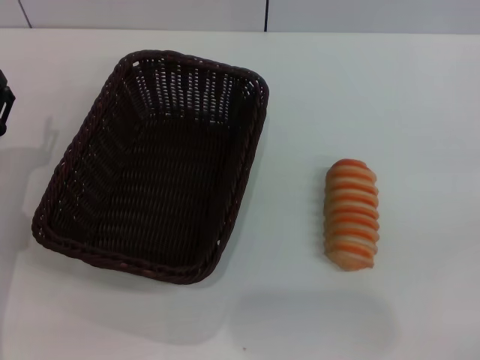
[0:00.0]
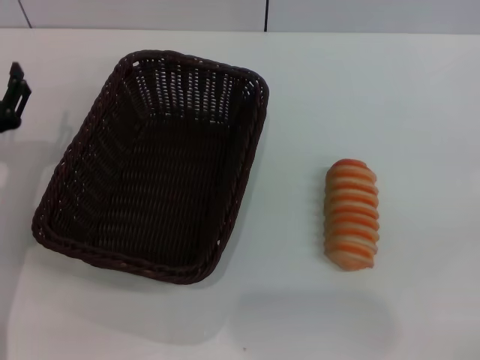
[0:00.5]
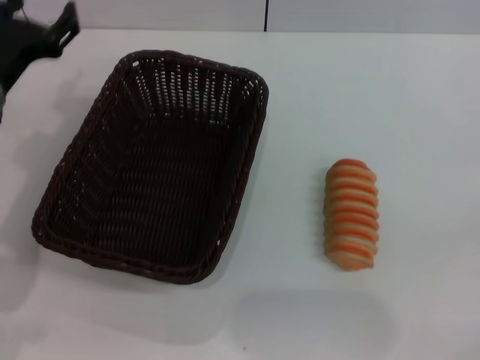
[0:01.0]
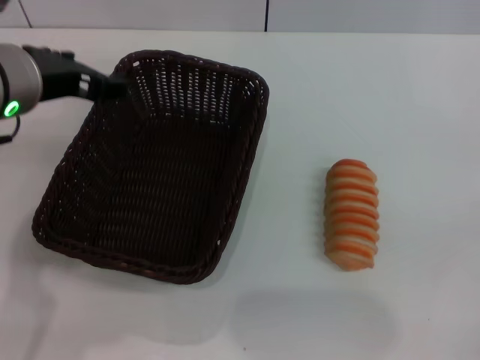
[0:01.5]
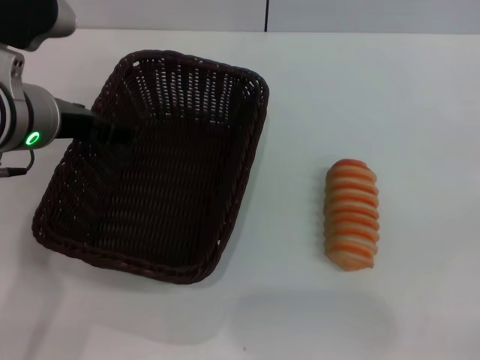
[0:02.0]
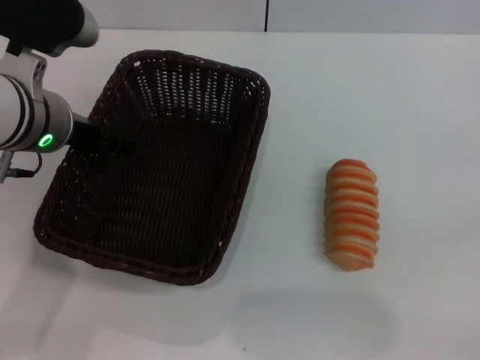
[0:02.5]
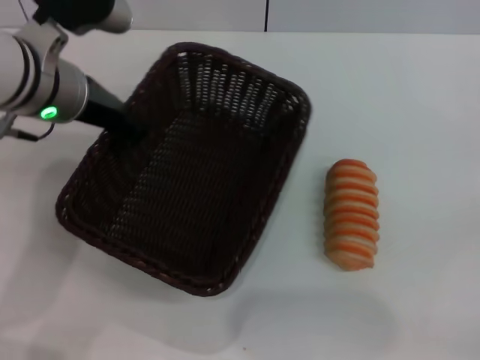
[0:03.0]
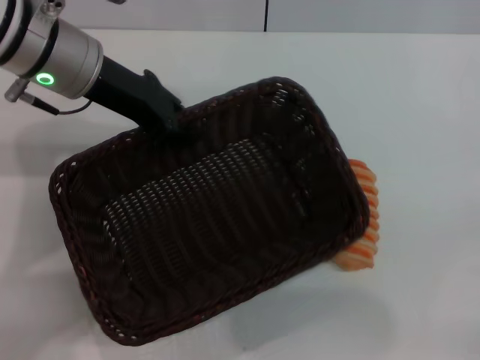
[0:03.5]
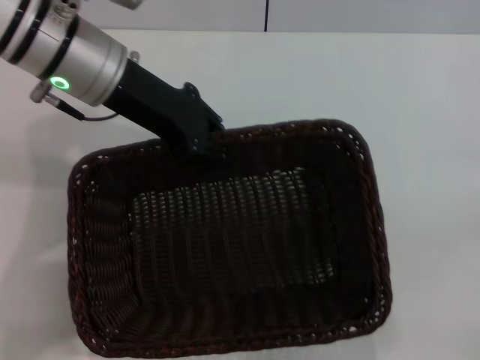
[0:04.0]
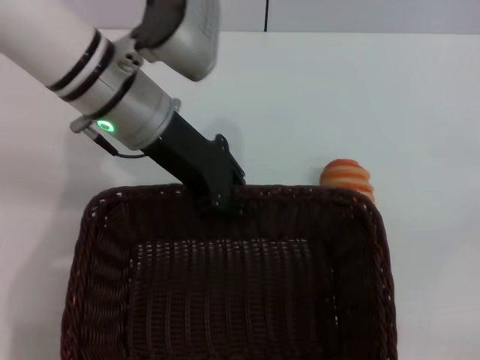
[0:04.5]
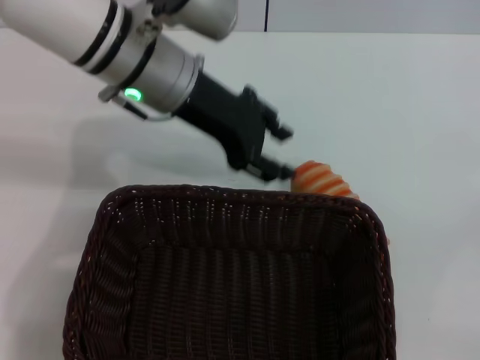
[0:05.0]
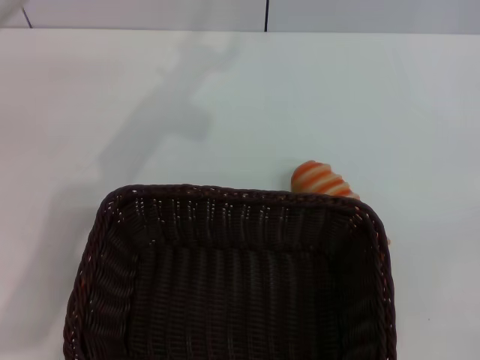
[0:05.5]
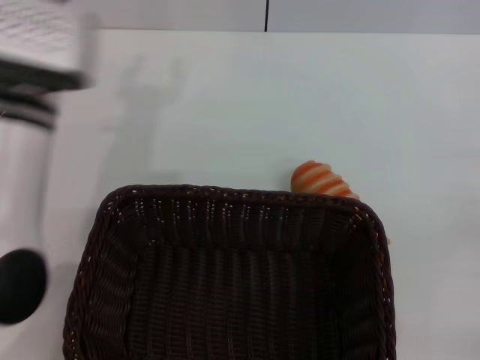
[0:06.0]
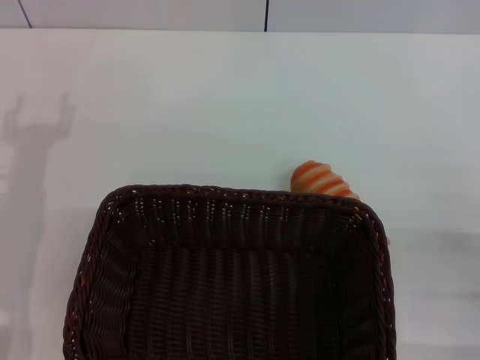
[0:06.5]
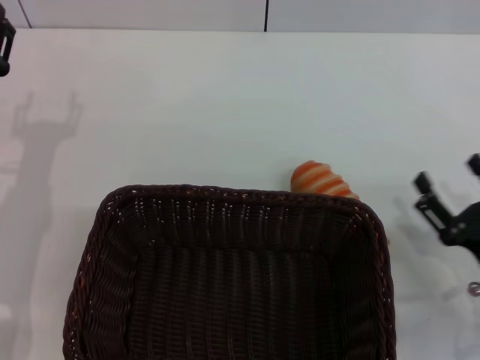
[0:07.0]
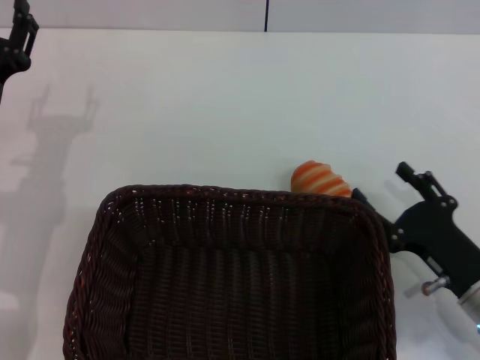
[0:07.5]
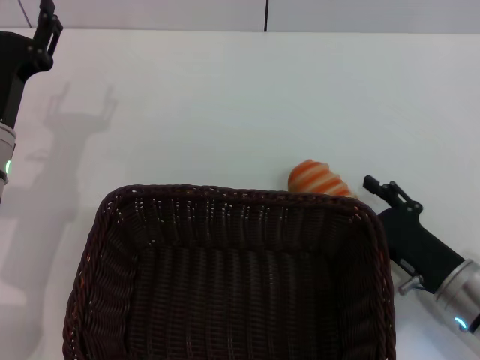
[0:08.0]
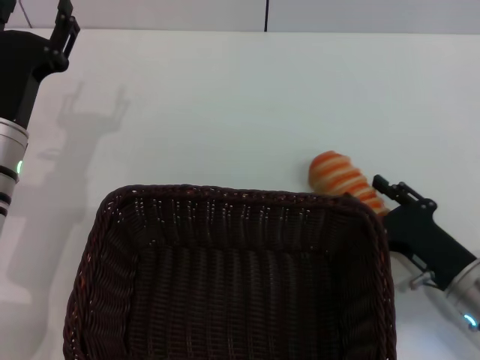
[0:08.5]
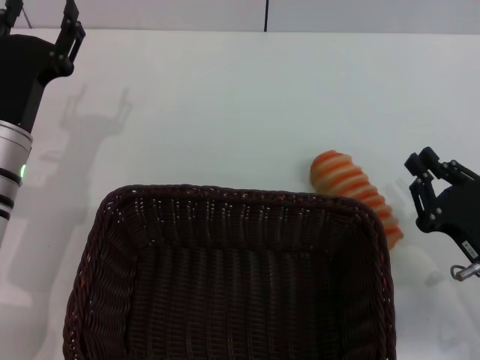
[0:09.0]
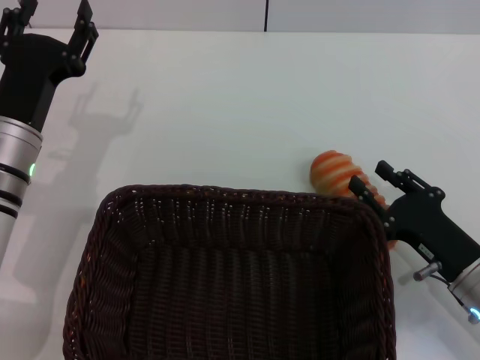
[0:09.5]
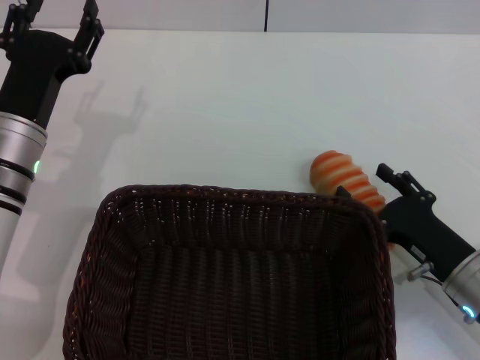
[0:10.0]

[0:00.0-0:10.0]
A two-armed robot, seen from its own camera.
Step, 0:00.0 to 0:03.5: Pick up the dark basket with the left gripper.
Step, 0:04.0 to 0:05.0: Place the dark basket in the center of view with the left gripper.
0:00.0 to 0:02.0: The left gripper heads upward, to the right and forward, covering approximately 20 cm.
0:02.0 to 0:04.0: The left gripper moves forward, some 5 cm, and closes.
0:04.0 to 0:06.0: The left gripper is displaced backward by some 5 cm, and opens up.
0:06.0 to 0:08.0: The right gripper moves to the left, about 15 cm. Meanwhile the left gripper is displaced downward and to the left by approximately 15 cm.
0:08.0 to 0:10.0: The right gripper closes and opens again.

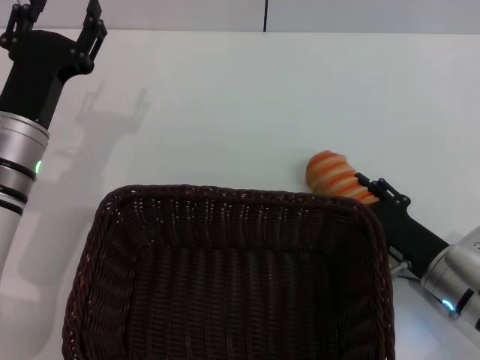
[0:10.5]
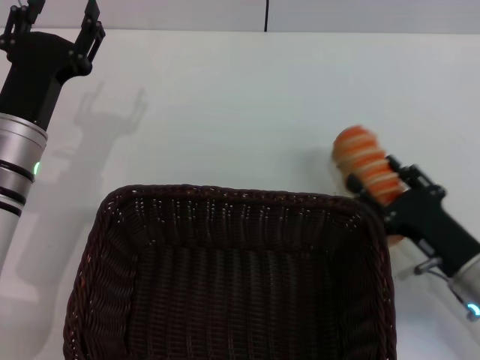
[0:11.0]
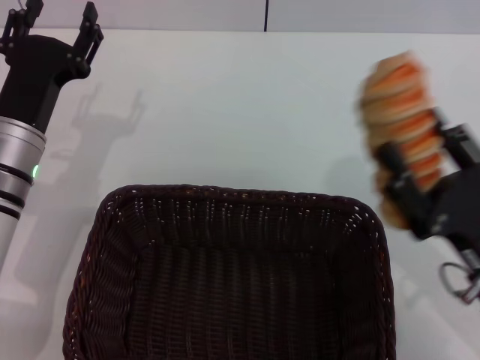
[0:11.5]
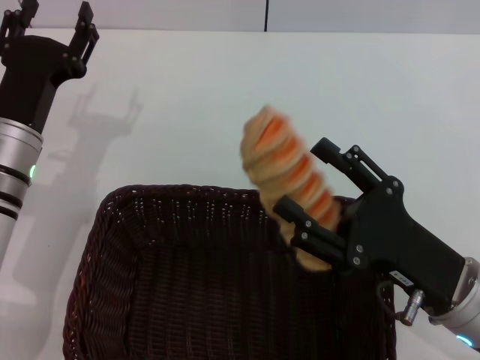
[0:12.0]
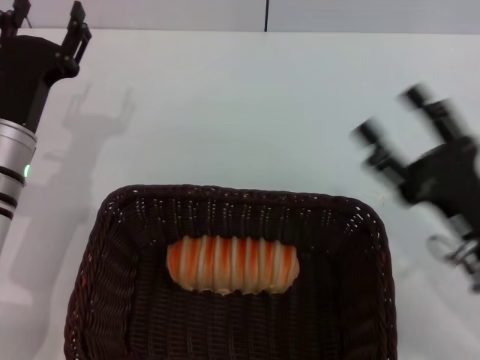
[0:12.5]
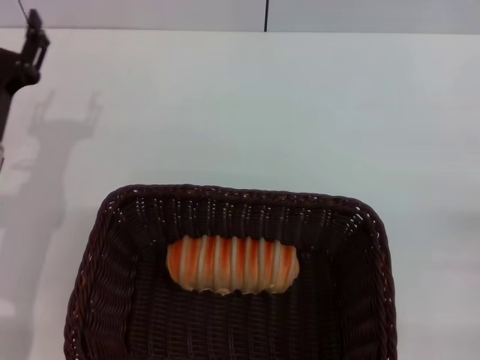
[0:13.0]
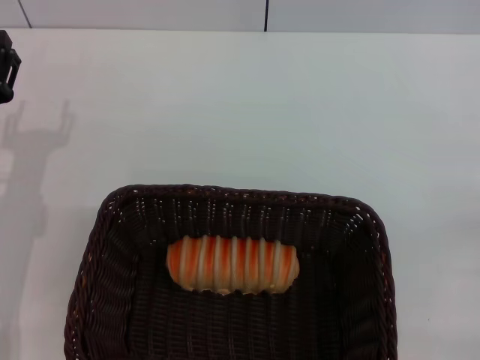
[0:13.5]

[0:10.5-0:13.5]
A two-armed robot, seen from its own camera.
Step, 0:11.5 to 0:12.0: Place the long bread into the dark basket with the right gripper.
0:10.5 to 0:12.0: The right gripper goes some 5 cm upward.
0:12.0 to 0:13.5: The right gripper moves to the right, about 15 cm. Meanwhile the left gripper ends up approximately 5 cm from where it was.
